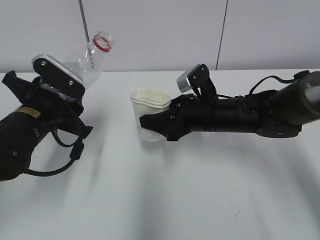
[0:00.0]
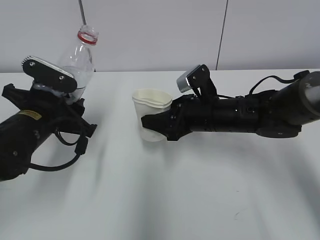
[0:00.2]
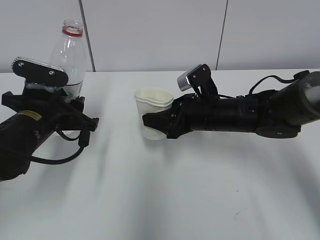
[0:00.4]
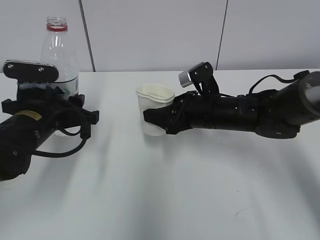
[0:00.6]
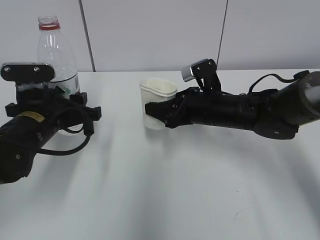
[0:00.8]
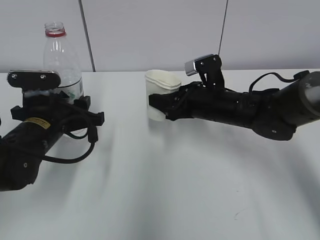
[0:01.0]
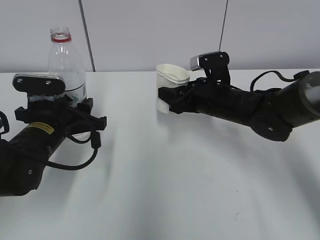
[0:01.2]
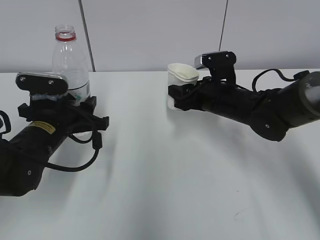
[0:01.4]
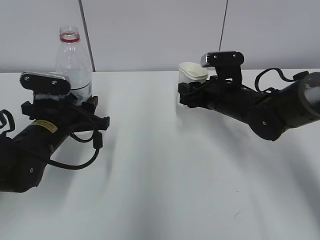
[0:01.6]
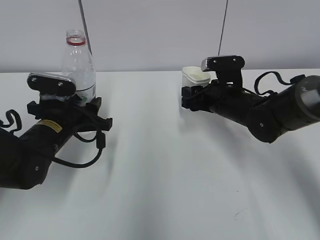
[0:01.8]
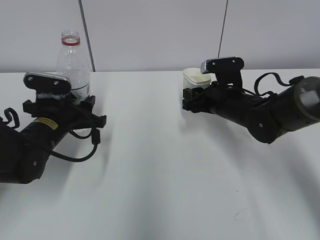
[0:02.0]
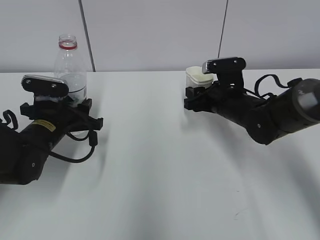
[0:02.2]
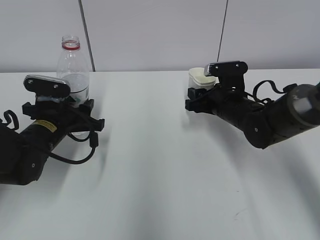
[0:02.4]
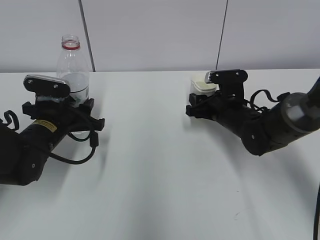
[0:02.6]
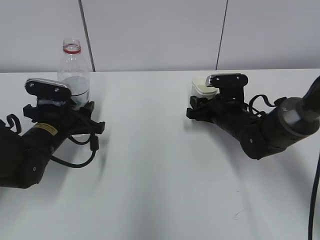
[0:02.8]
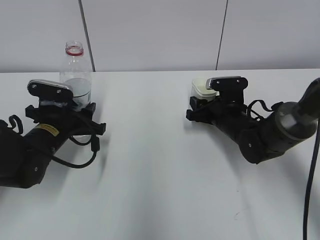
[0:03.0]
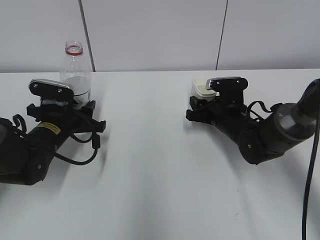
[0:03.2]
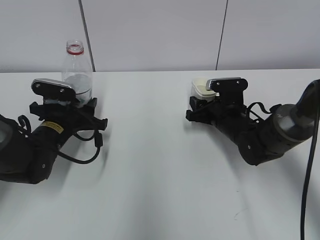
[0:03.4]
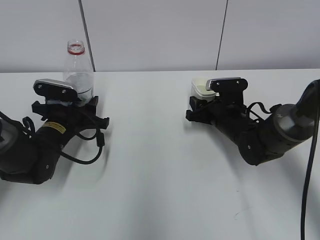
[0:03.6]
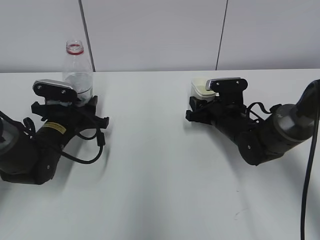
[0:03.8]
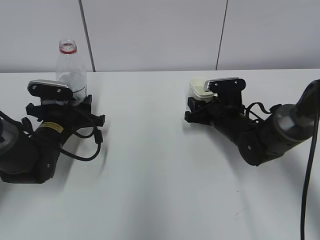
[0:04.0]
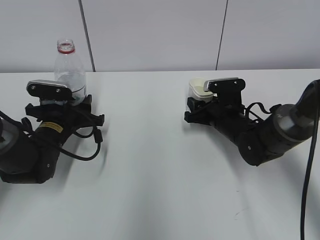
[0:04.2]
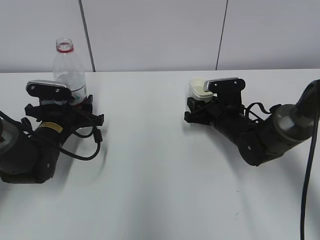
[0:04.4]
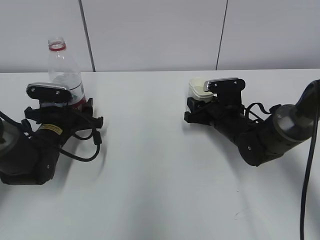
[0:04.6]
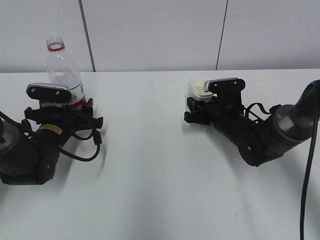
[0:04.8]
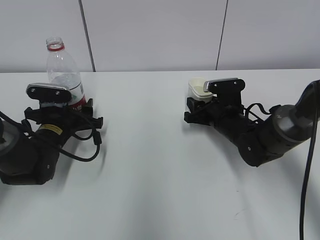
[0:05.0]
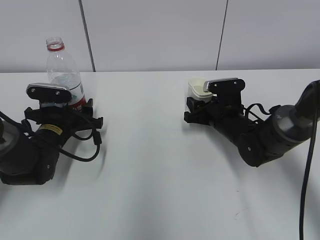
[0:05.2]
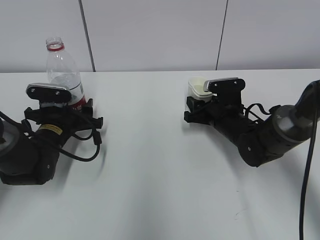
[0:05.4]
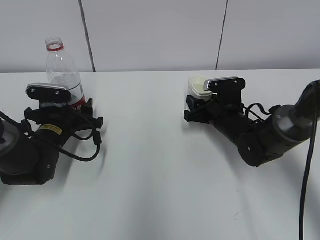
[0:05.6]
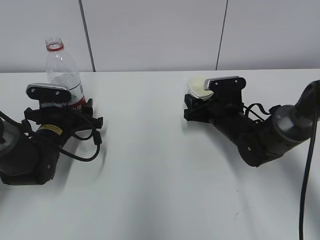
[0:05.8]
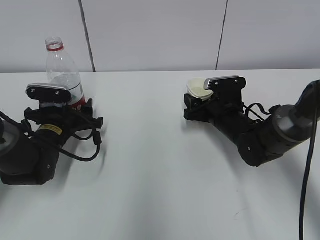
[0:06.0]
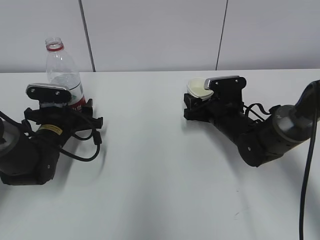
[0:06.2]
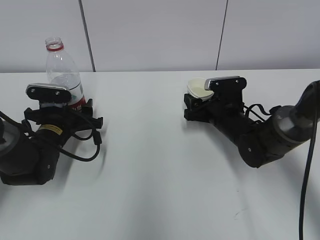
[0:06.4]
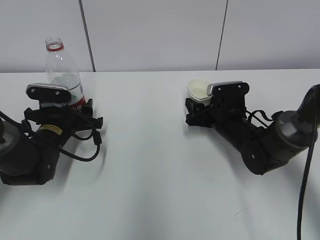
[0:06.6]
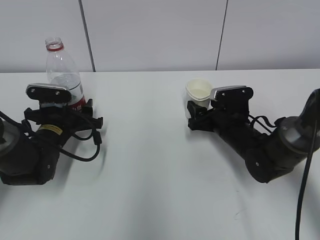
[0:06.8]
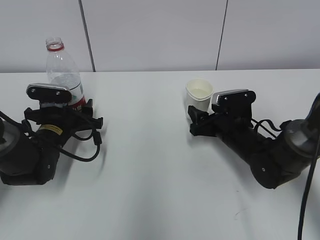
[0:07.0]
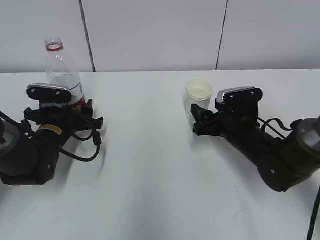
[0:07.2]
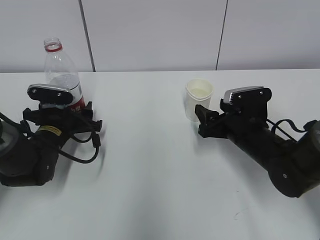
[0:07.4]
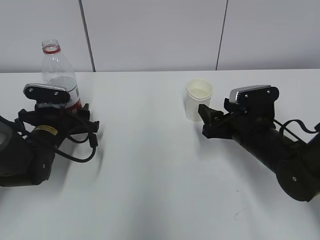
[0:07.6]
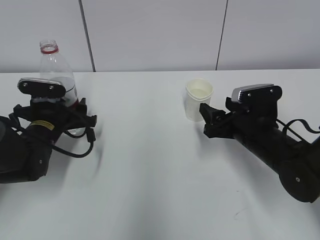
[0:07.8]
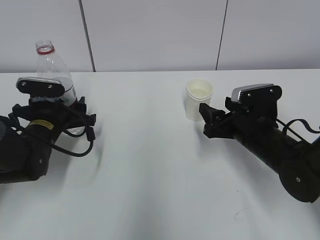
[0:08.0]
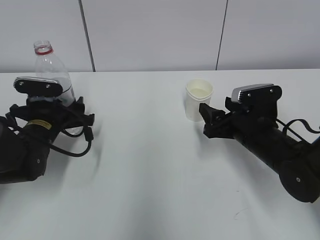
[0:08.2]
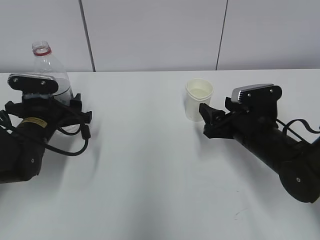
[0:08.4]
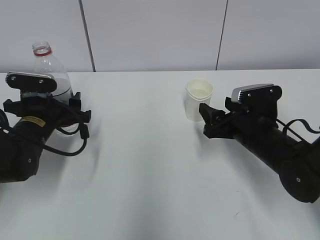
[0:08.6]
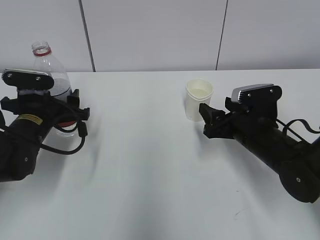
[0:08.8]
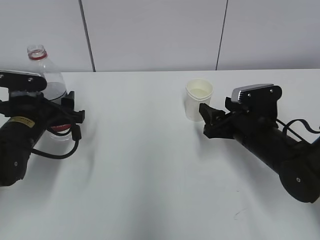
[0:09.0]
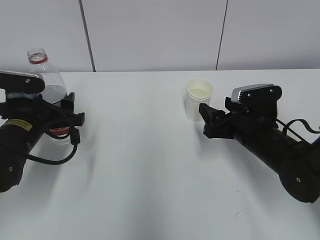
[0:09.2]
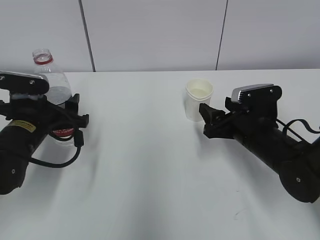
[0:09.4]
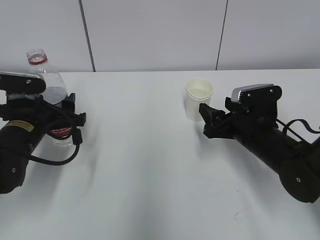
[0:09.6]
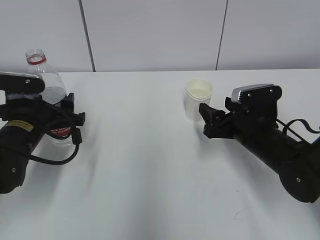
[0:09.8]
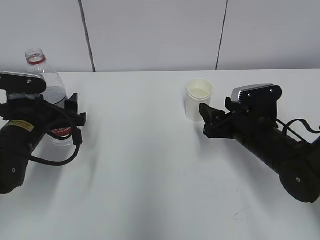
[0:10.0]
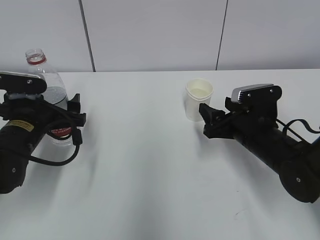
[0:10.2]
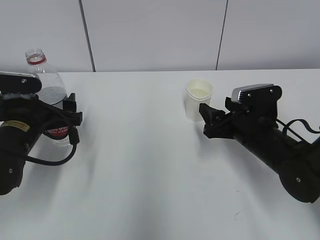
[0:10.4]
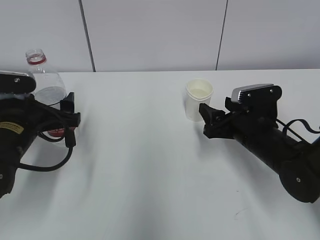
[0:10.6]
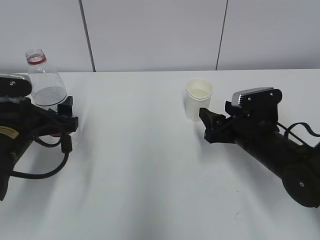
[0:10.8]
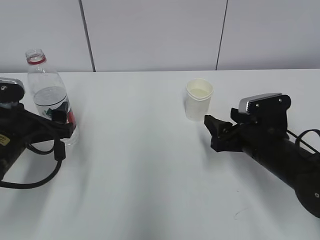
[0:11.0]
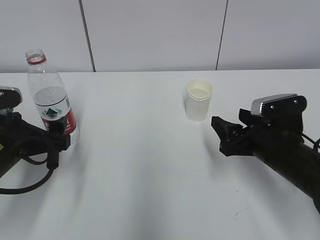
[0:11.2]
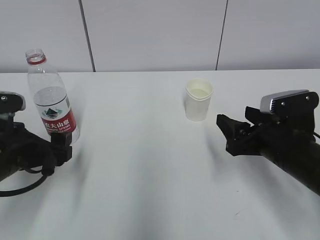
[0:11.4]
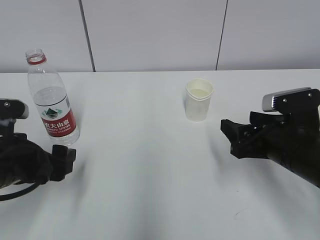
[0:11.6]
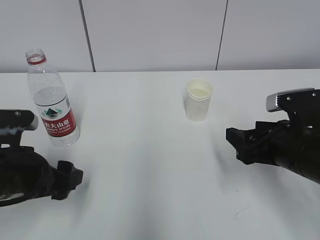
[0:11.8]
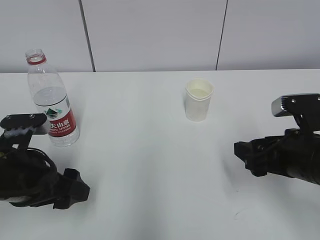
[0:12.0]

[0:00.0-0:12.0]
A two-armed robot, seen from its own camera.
Step, 1.8 to 4.2 s: Place the water bottle with the left hand.
0.0 to 1.6 s: The right gripper shifts by about 5 cm.
1.6 to 3.0 s: The right gripper travels downward by about 5 cm.
3.0 to 4.4 s: The grippers make only small movements.
4.4 to 6.0 s: The right gripper opens its fingers.
6.0 to 7.6 s: The right gripper travels backward by approximately 10 cm.
7.6 to 9.0 s: The left gripper shifts by about 5 cm.
9.0 to 10.4 s: The left gripper opens.
10.4 to 12.0 s: The left gripper is displaced backward by roughly 10 cm; the right gripper heads backward and upward, covering approximately 10 cm.

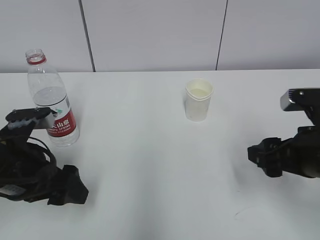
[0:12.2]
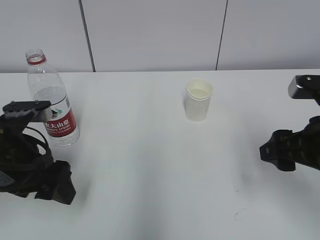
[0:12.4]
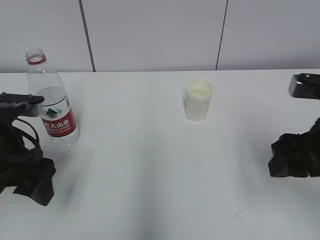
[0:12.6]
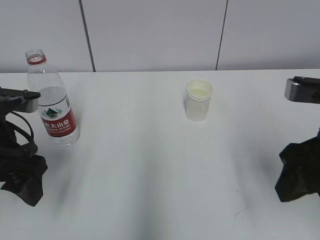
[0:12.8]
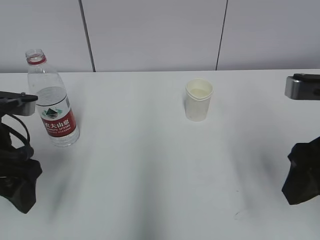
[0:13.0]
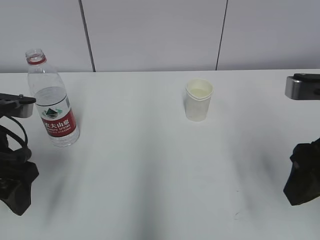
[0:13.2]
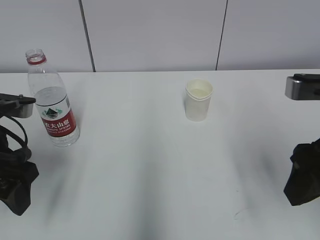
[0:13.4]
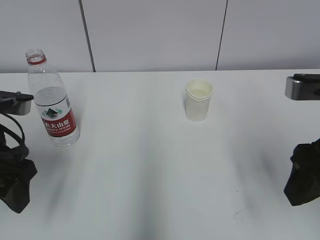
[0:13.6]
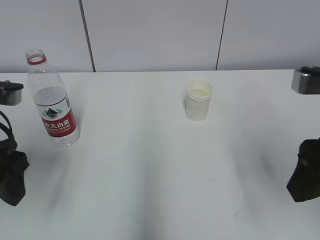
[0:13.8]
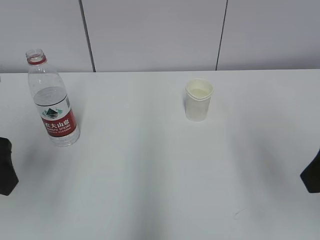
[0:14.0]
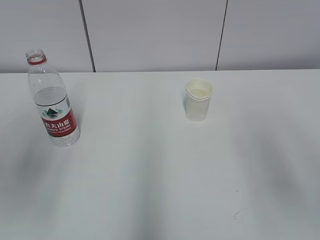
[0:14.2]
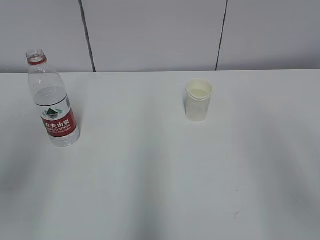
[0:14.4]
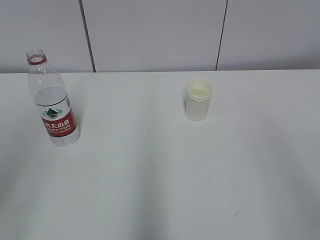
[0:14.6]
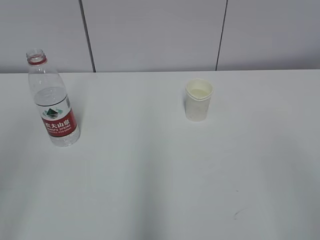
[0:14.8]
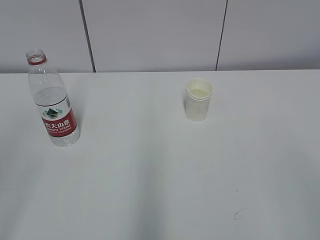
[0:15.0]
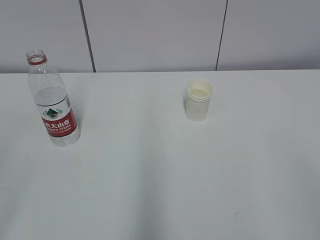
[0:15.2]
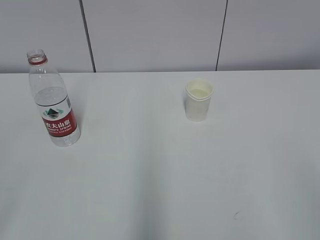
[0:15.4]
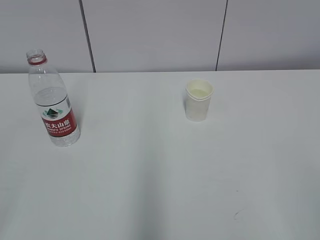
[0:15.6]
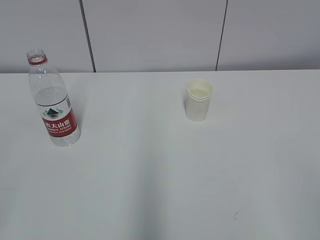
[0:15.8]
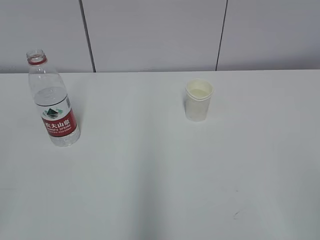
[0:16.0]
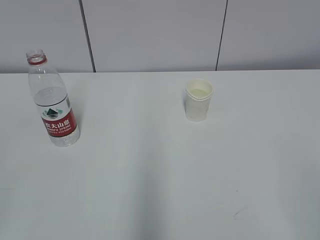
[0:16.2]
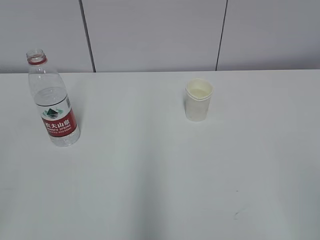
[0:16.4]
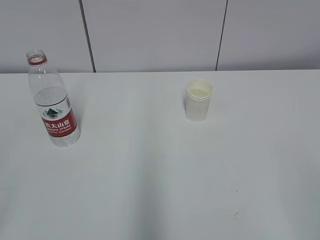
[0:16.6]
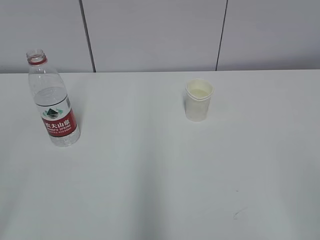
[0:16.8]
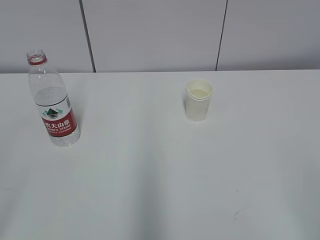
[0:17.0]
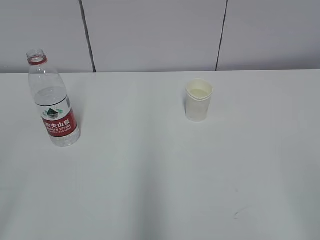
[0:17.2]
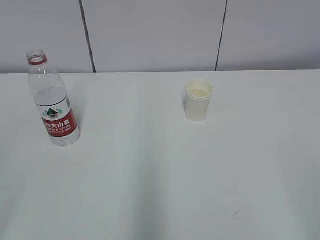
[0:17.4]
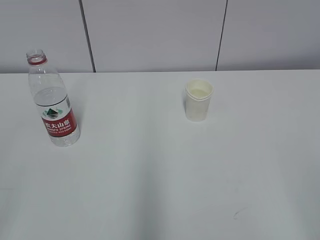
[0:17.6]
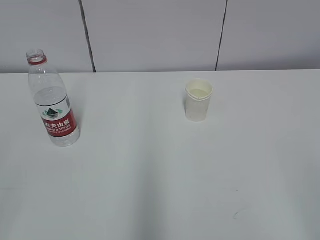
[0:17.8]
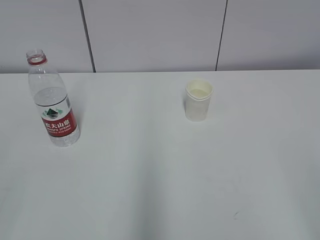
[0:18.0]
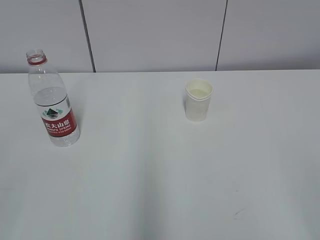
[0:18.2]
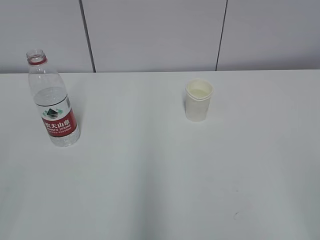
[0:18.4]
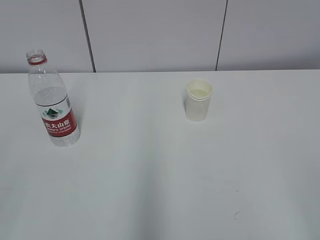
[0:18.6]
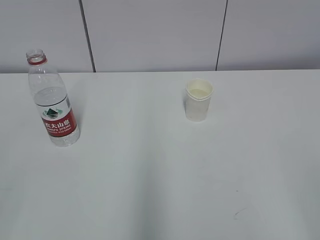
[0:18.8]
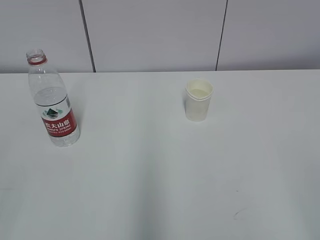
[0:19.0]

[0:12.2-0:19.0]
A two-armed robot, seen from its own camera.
12.2 to 13.6 s: The two grippers go roughly 10 cm upward.
13.6 to 15.0 s: The left gripper travels backward, upward and to the left by approximately 20 cm; the right gripper goes roughly 20 cm backward.

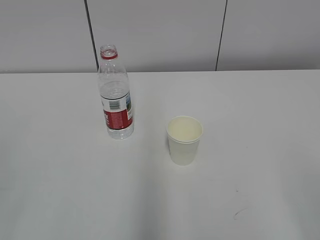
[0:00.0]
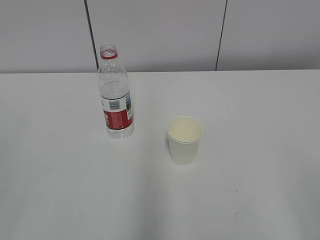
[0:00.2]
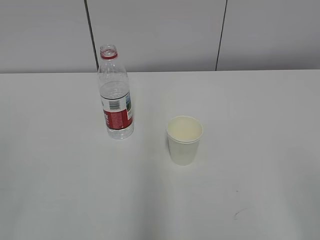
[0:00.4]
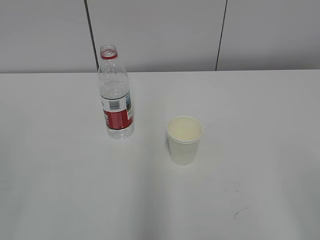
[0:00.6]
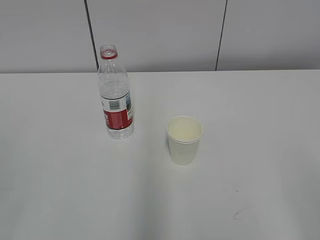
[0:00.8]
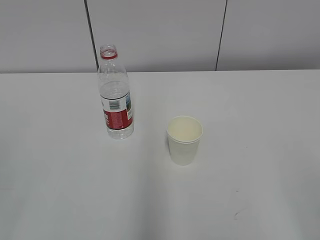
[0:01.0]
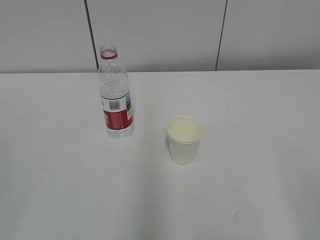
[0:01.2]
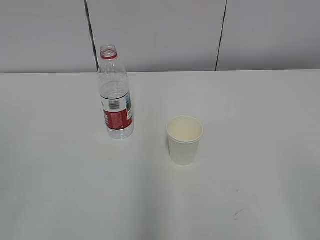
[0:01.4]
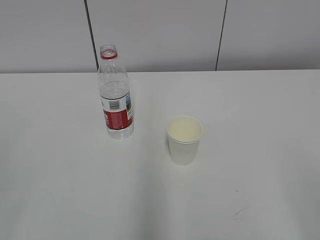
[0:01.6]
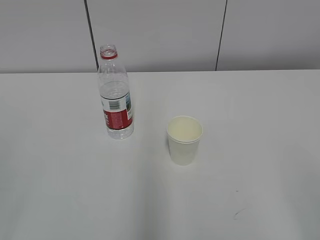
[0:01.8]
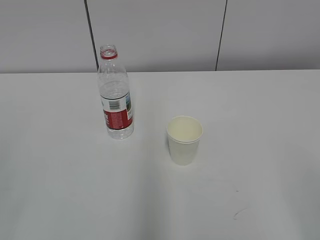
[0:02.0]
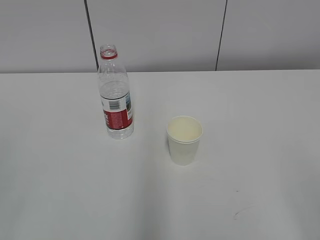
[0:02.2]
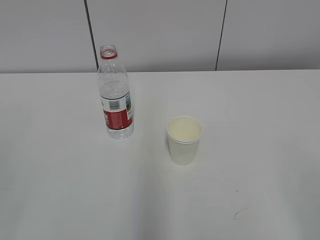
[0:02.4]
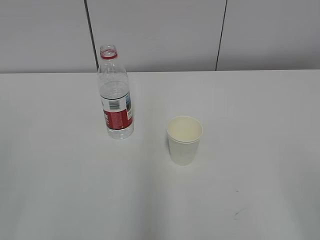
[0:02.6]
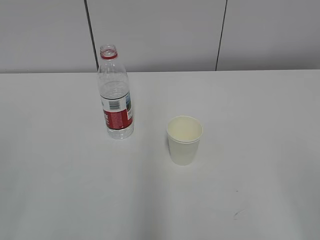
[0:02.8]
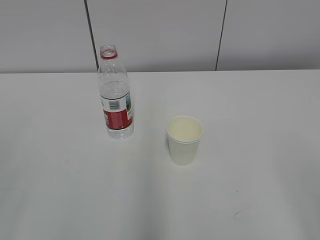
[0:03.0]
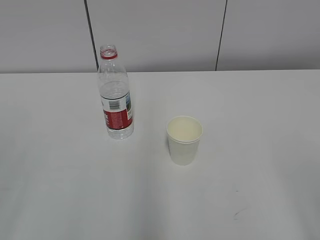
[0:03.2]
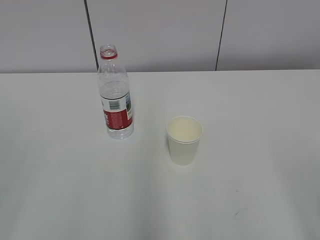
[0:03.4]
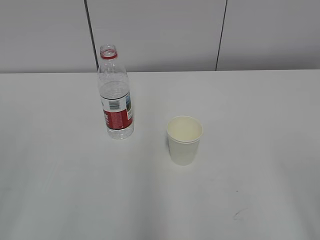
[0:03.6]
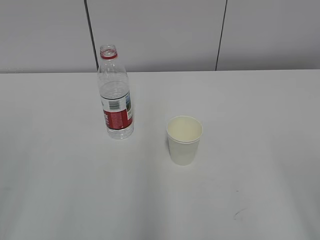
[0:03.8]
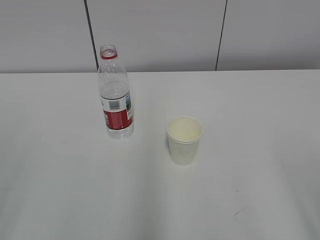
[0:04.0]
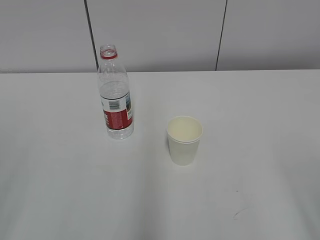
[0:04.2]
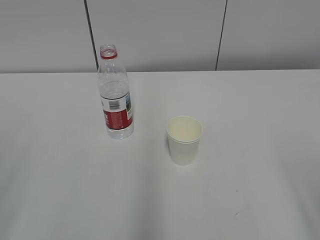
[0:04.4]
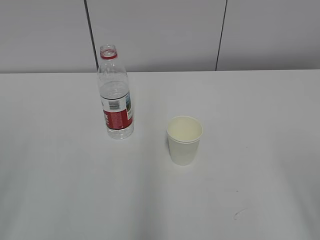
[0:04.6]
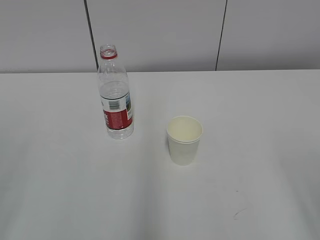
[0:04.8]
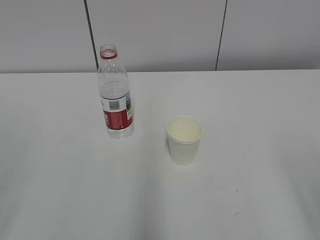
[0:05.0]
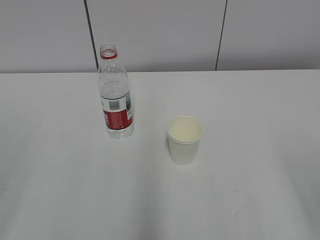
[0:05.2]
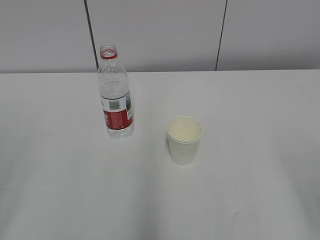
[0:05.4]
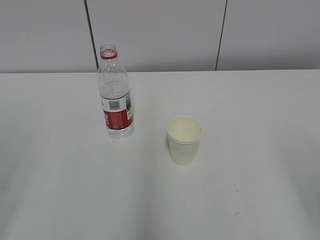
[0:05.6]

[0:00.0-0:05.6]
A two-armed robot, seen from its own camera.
1.4 to 2.8 s: Both grippers stay about where they are.
